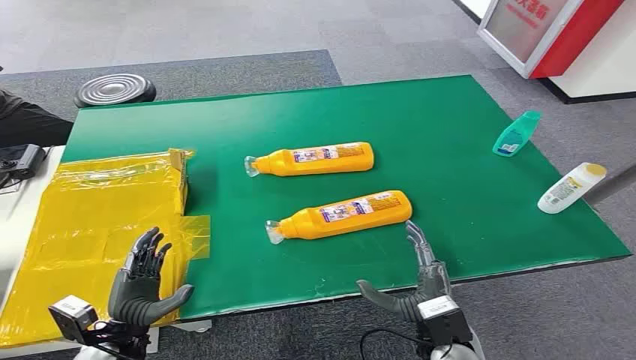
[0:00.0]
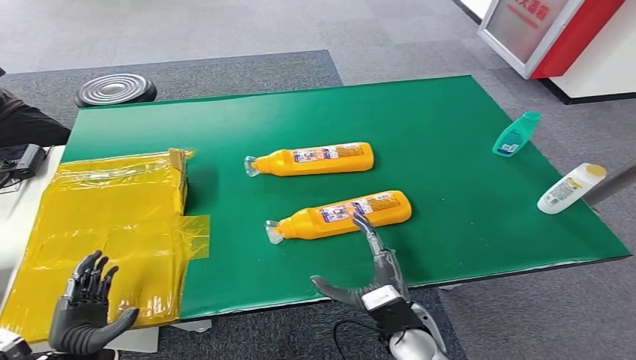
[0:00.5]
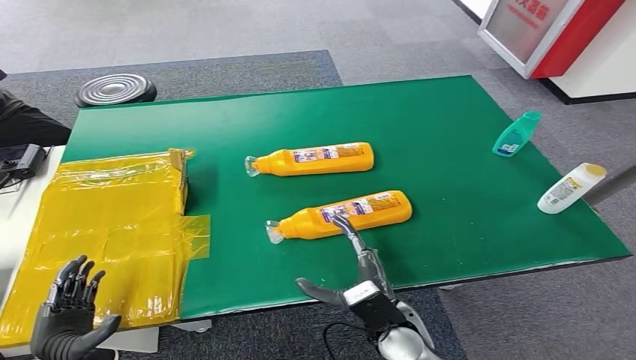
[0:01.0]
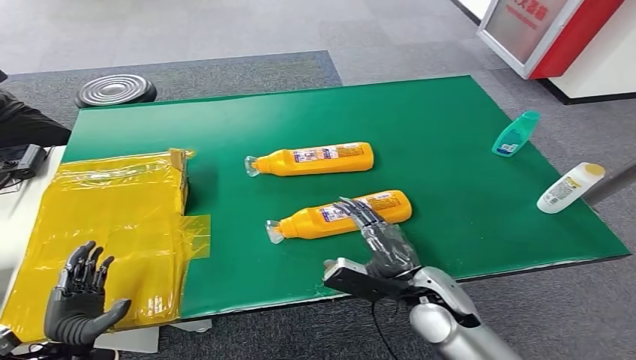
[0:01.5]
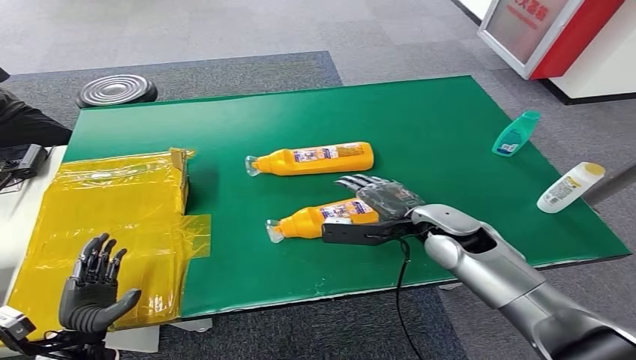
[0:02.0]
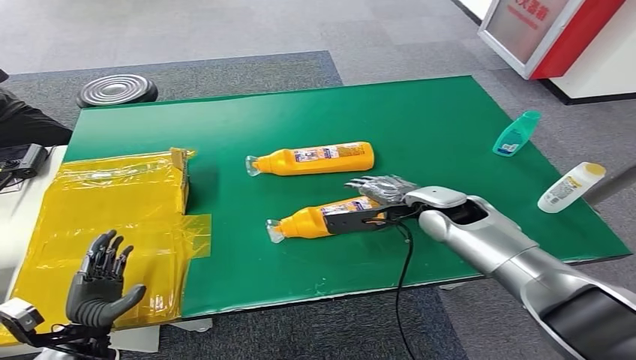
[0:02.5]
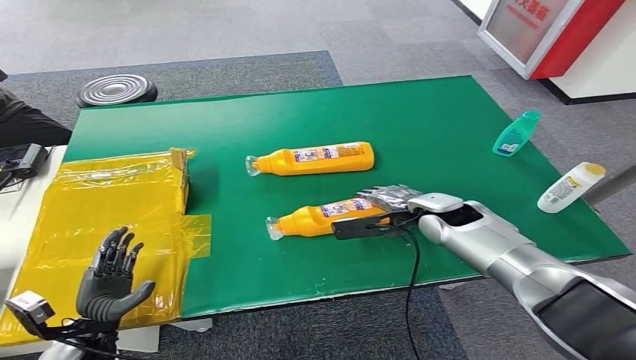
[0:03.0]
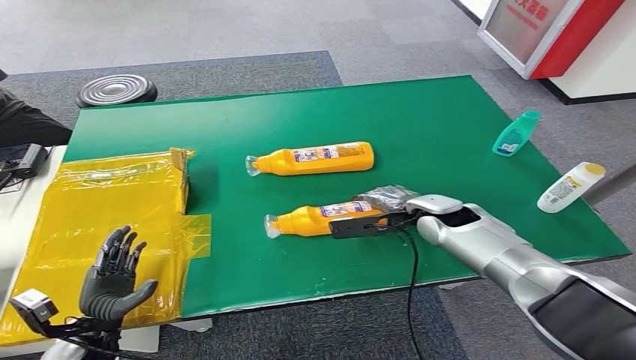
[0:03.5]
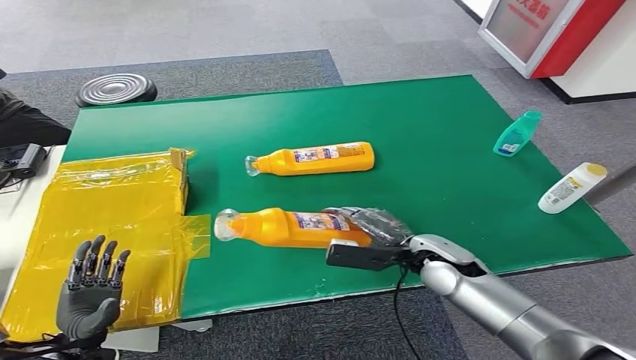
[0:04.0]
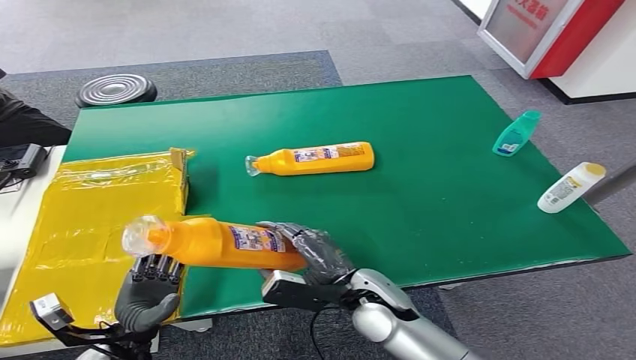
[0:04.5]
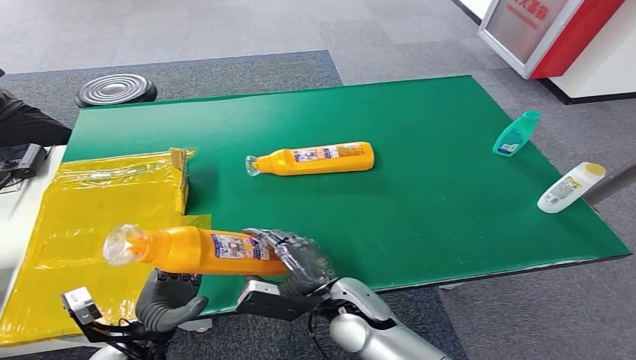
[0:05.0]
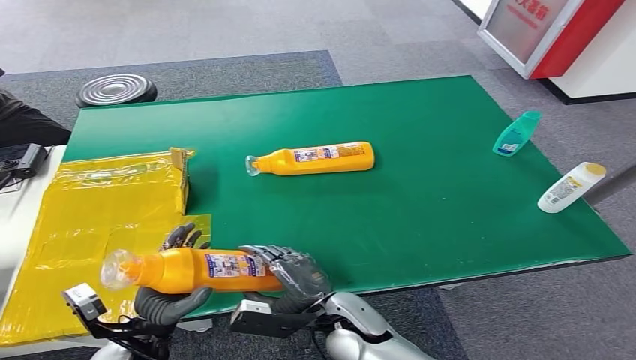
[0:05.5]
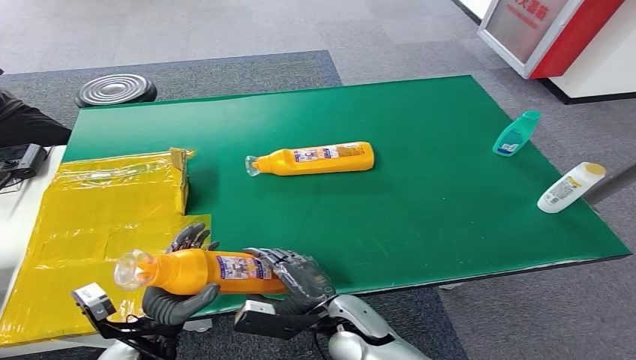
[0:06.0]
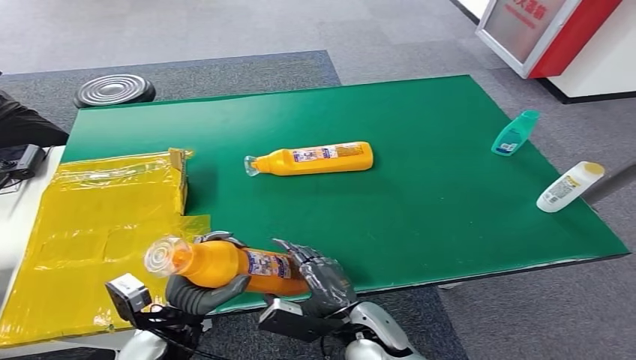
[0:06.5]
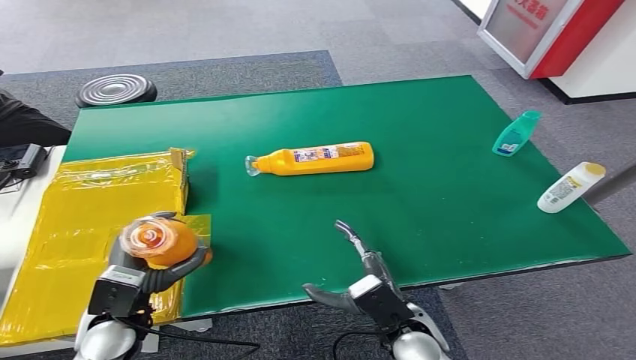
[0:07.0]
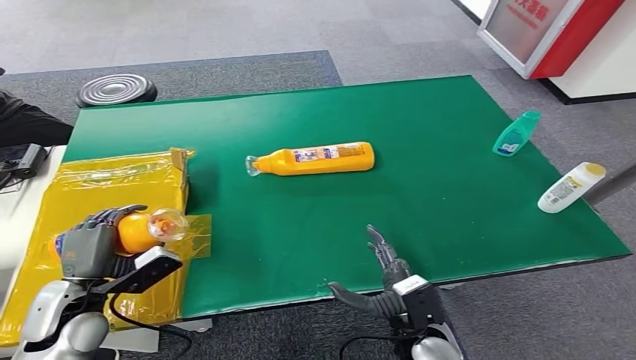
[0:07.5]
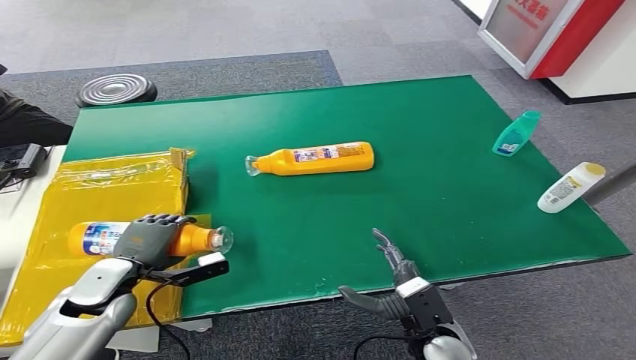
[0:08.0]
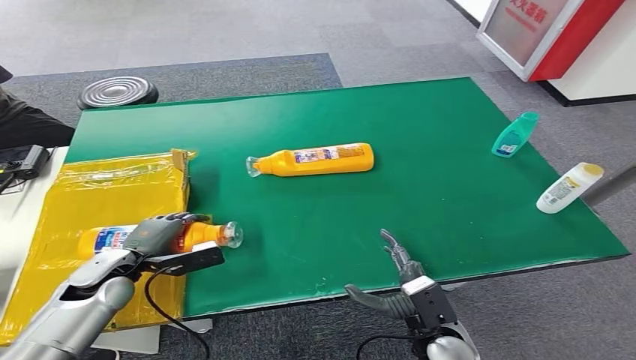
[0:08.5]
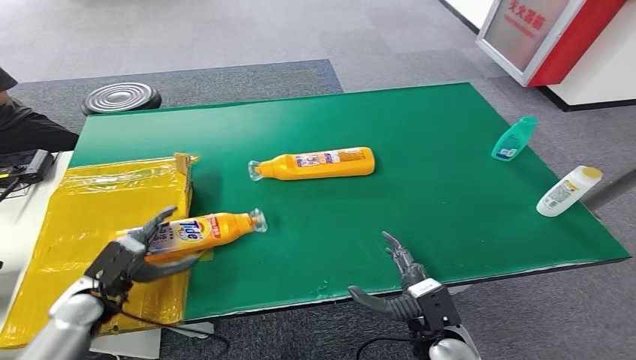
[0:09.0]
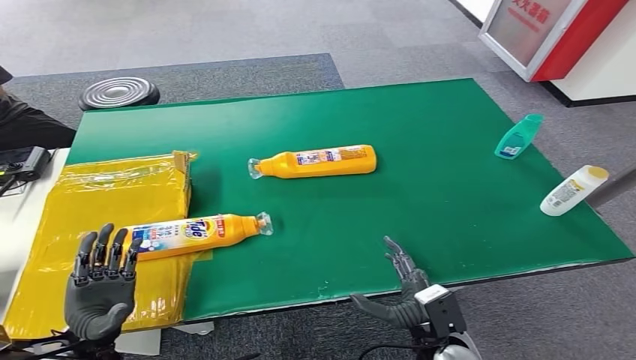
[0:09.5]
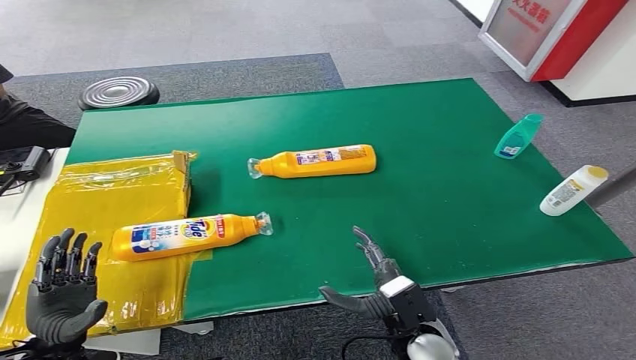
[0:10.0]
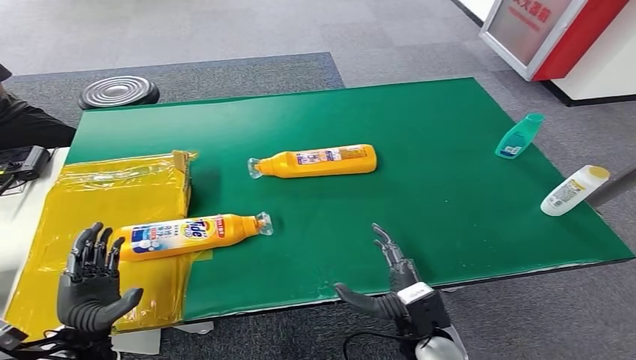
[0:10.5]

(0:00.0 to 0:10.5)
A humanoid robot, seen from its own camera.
Step, 0:00.0 - 0:04.0: Pick up the bottle from the table.
Step, 0:04.5 - 0:10.5: Turn the bottle to the front side.
0:02.0 - 0:04.0: The right hand moves downward, about 5 cm.
0:06.5 - 0:08.5: The right hand moves to the right, roughly 10 cm; the left hand goes approximately 15 cm forward and to the left.
0:08.5 - 0:10.5: The left hand moves backward, some 15 cm.

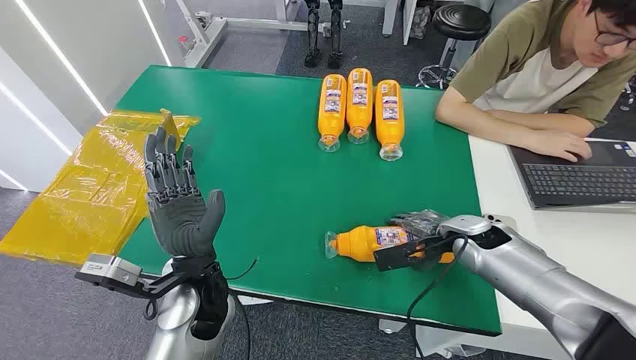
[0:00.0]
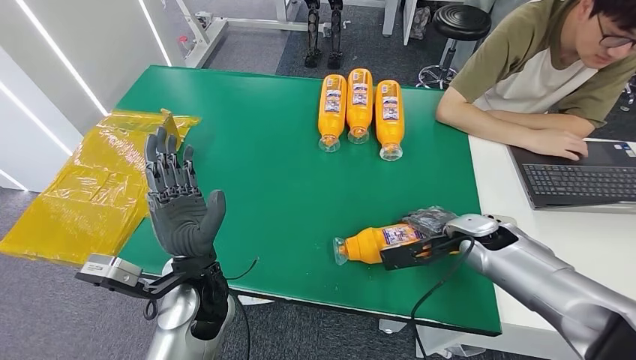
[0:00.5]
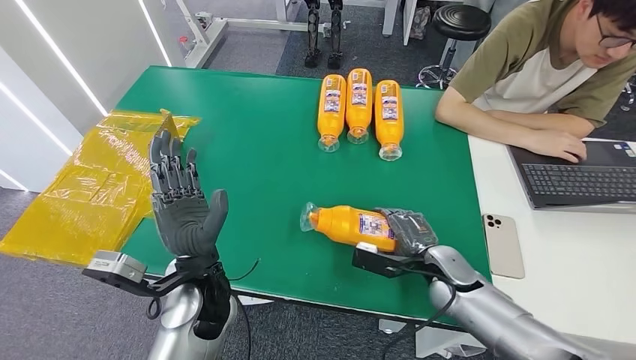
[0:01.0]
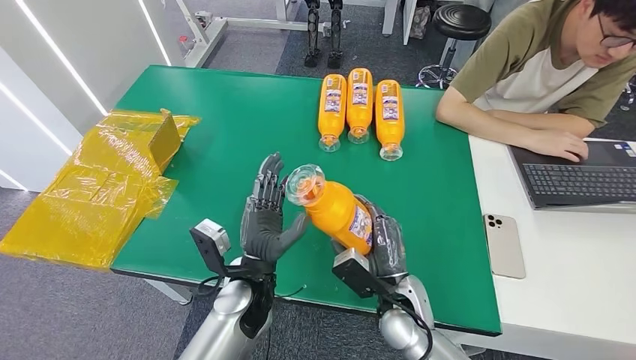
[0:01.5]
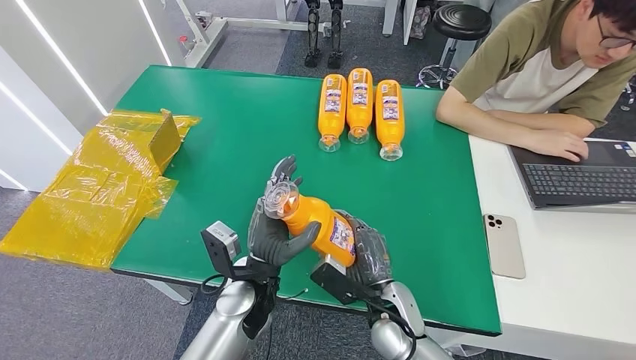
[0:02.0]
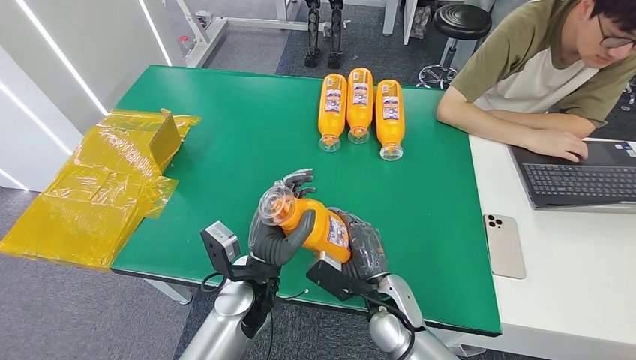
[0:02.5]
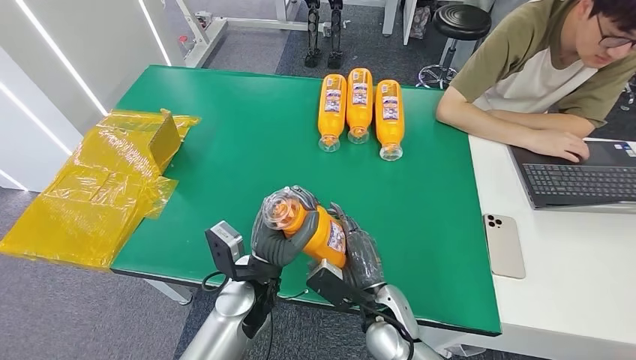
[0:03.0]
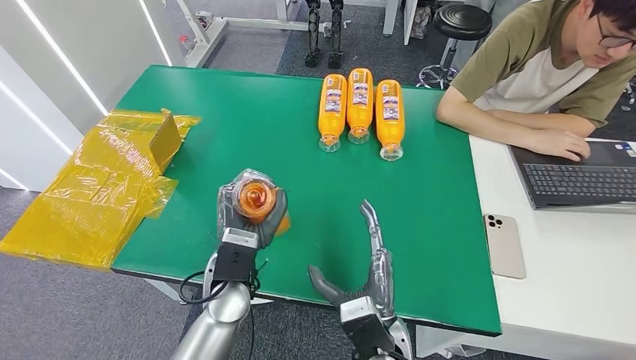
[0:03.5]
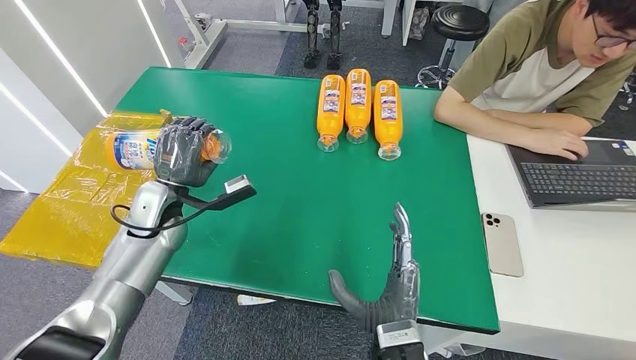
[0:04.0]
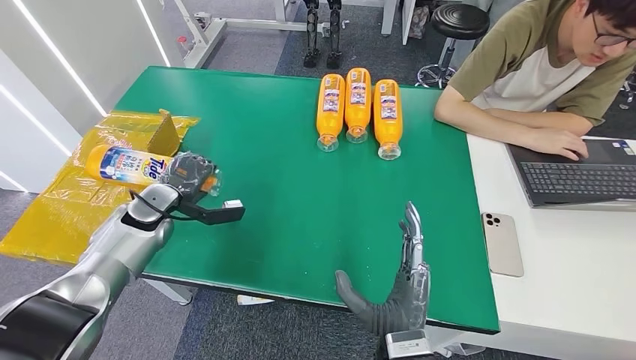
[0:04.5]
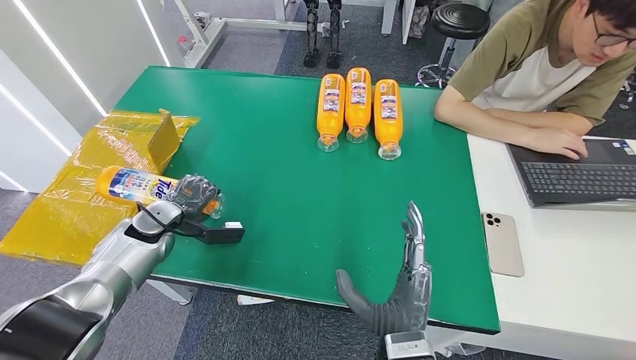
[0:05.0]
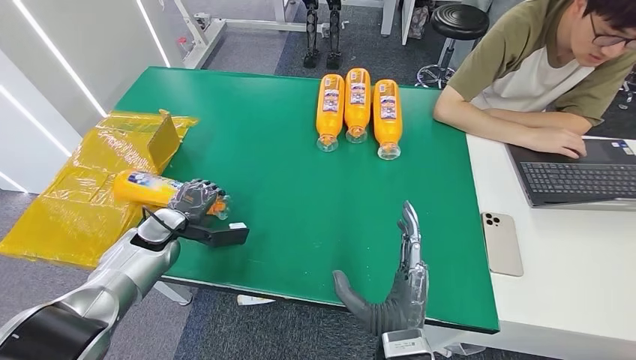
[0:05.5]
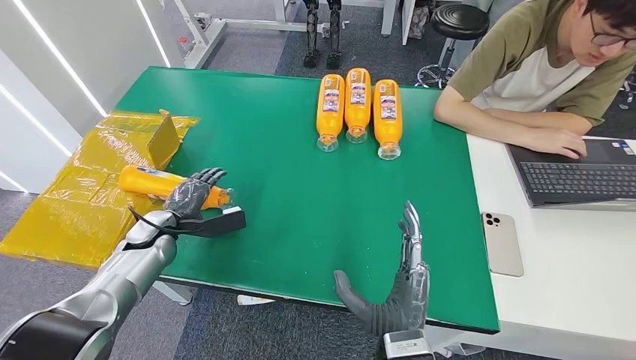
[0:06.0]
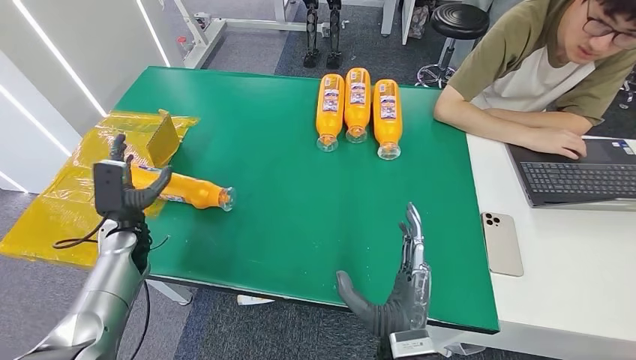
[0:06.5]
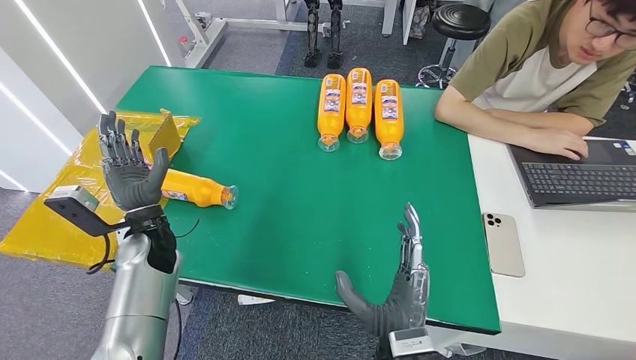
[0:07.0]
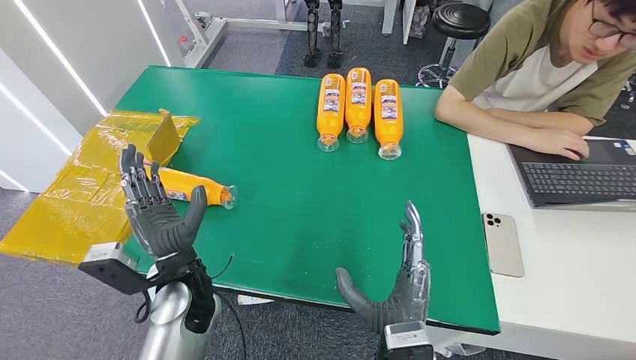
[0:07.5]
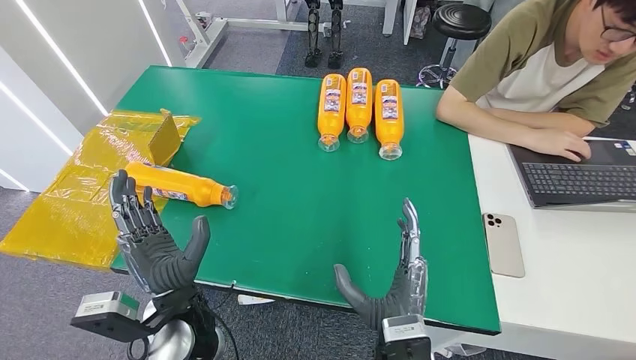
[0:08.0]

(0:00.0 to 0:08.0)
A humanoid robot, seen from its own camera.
Step, 0:00.0 - 0:02.0: Pick up the bottle from the table.
Step, 0:02.5 - 0:08.0: Turn the bottle to the front side.
0:02.0 - 0:04.0: The left hand goes some 25 cm to the left and forward; the right hand is displaced backward by approximately 10 cm.
0:04.0 - 0:06.0: The left hand goes roughly 10 cm downward and to the left.
0:06.0 - 0:08.0: The left hand heads to the right and backward, covering approximately 25 cm.
